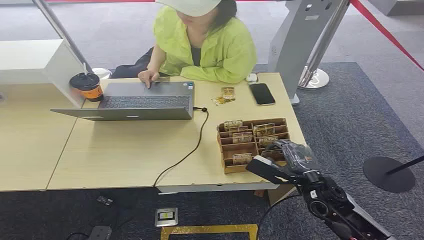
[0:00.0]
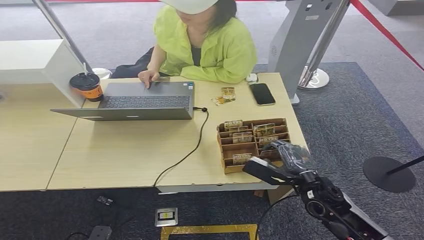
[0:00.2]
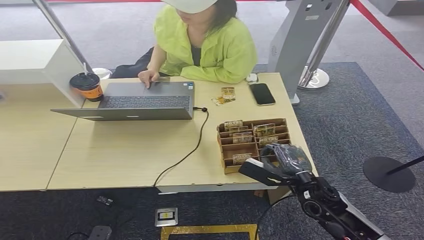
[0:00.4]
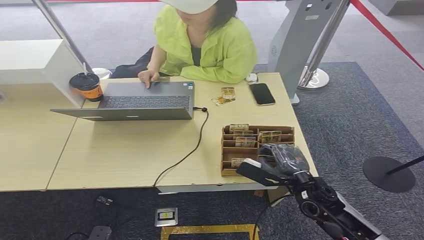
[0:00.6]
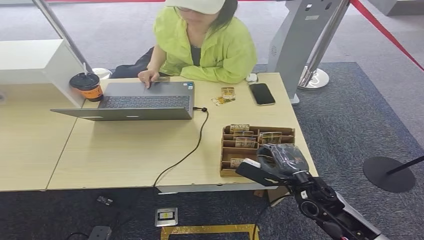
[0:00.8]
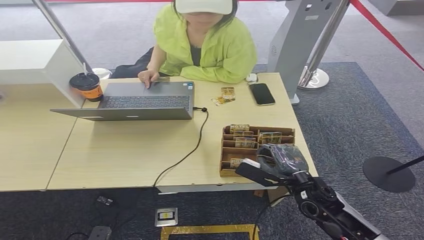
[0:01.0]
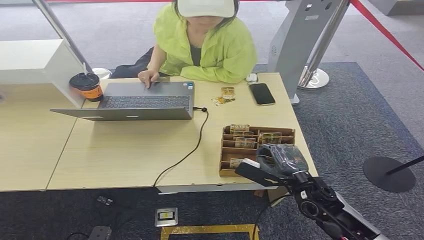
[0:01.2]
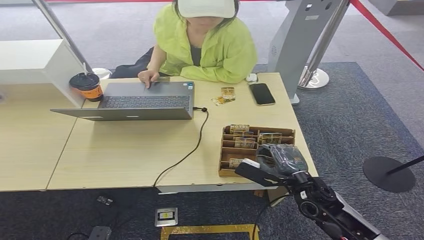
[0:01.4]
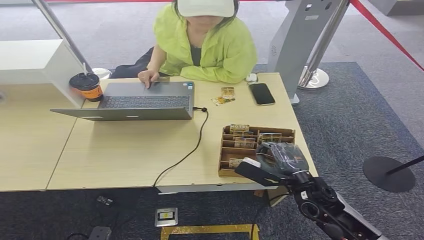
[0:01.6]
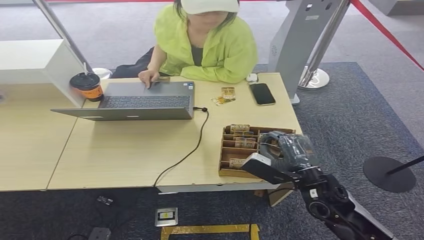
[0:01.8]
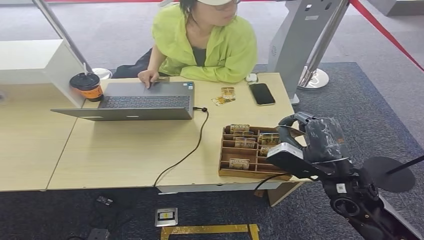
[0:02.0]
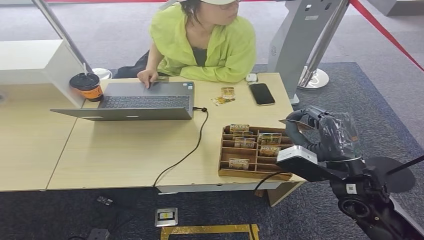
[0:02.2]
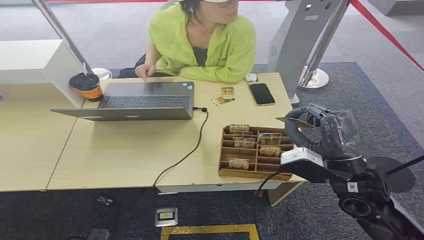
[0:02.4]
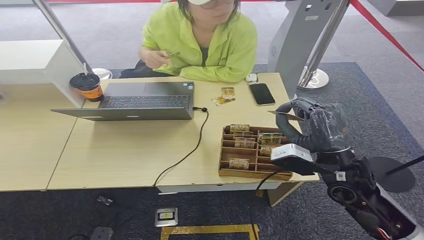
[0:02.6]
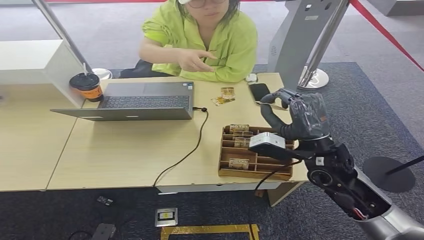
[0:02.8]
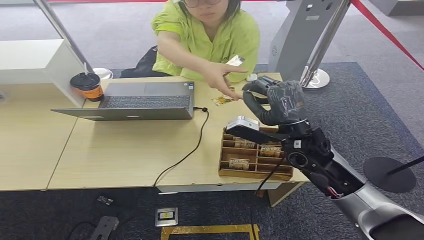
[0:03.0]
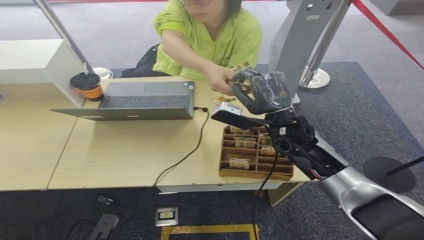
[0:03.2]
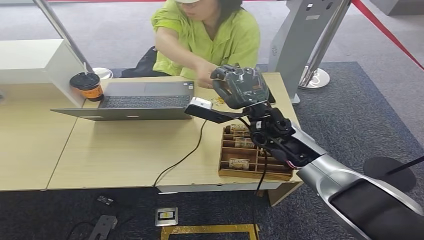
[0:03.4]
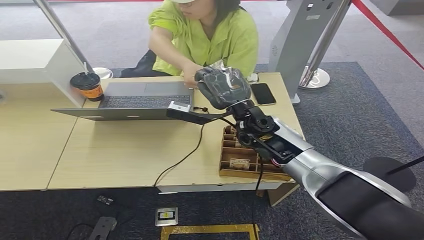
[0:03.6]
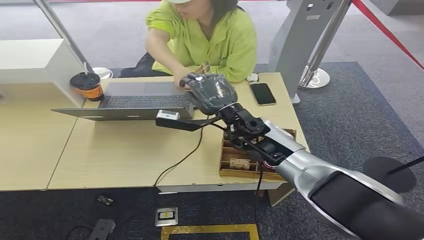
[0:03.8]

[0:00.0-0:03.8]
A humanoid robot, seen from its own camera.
Step, 0:00.0 to 0:02.2: Pick up the key card from the card box.
Step, 0:02.6 to 0:03.6: Hand the key card to the target.
0:01.2 to 0:02.6: The right hand goes approximately 15 cm upward.
0:02.6 to 0:03.8: The right hand is displaced to the left and forward by approximately 20 cm.
